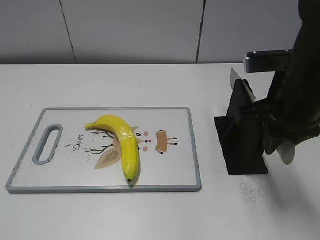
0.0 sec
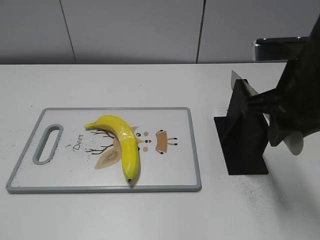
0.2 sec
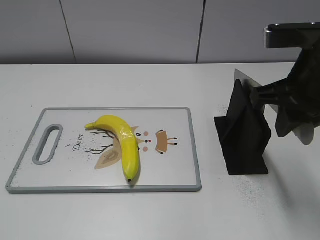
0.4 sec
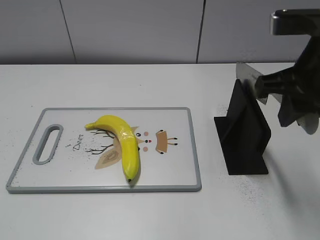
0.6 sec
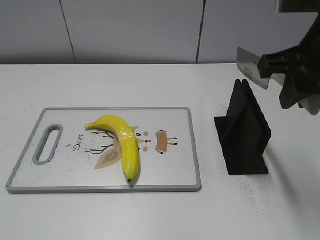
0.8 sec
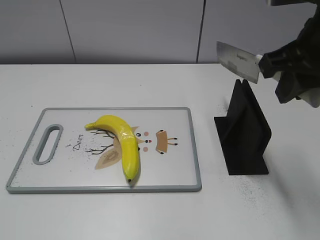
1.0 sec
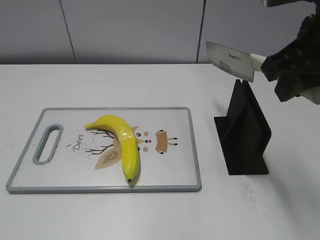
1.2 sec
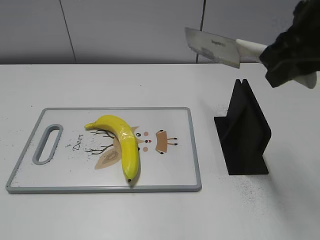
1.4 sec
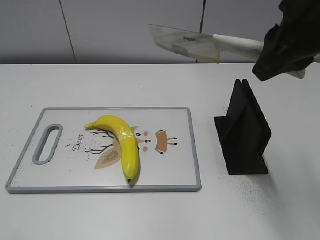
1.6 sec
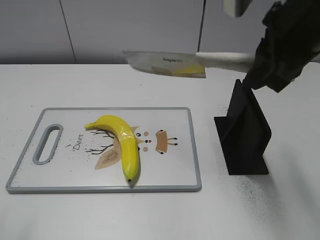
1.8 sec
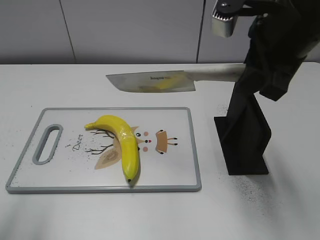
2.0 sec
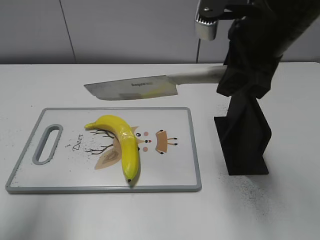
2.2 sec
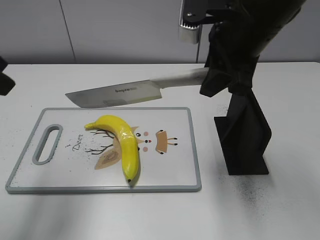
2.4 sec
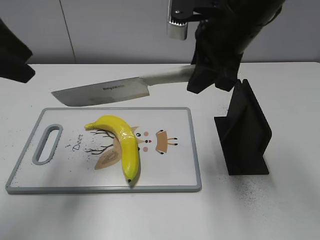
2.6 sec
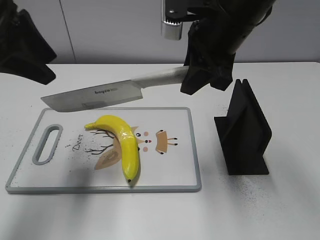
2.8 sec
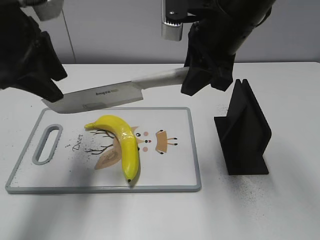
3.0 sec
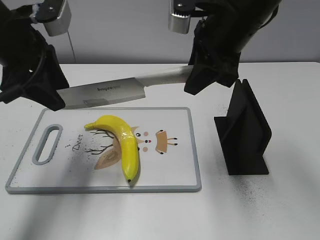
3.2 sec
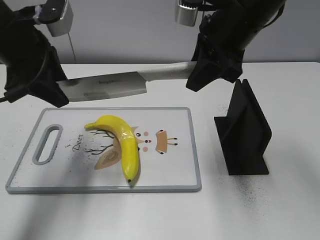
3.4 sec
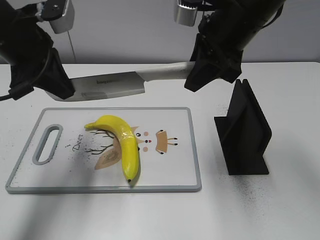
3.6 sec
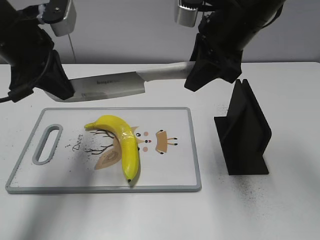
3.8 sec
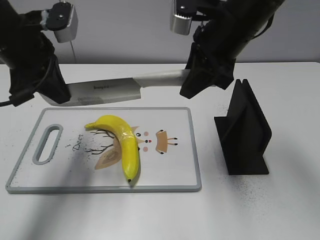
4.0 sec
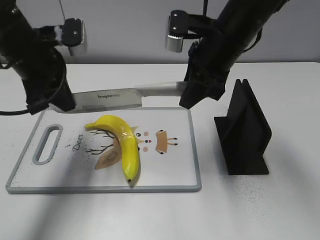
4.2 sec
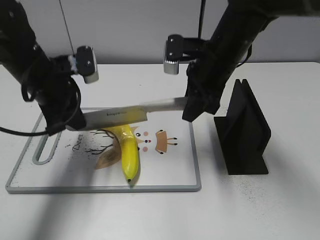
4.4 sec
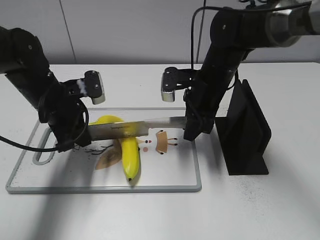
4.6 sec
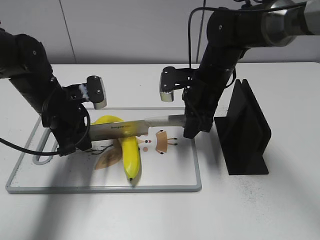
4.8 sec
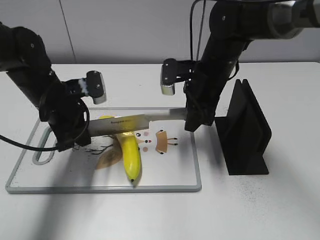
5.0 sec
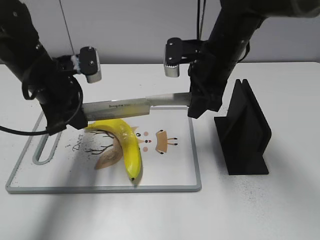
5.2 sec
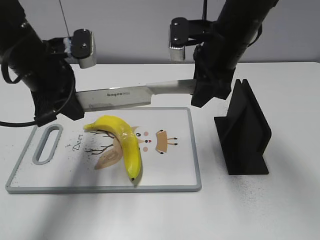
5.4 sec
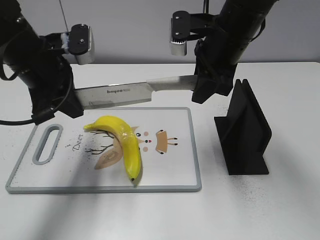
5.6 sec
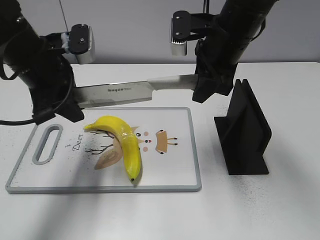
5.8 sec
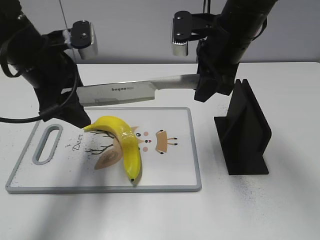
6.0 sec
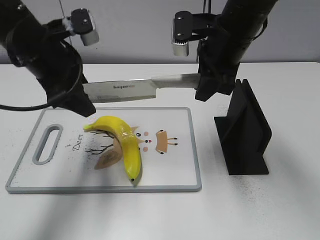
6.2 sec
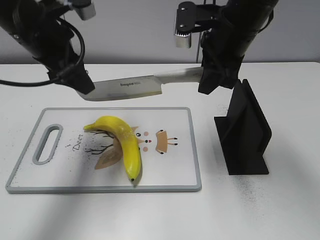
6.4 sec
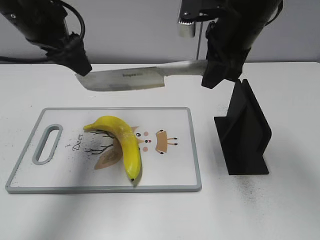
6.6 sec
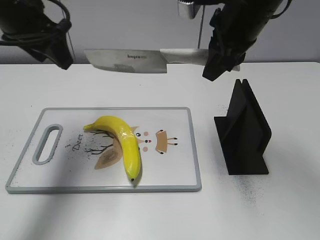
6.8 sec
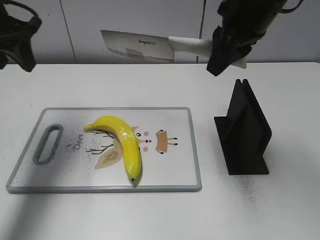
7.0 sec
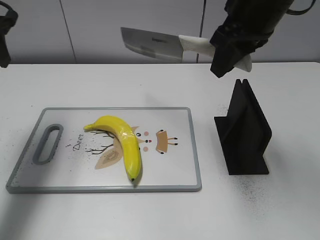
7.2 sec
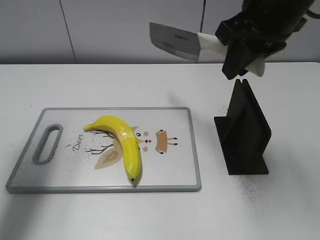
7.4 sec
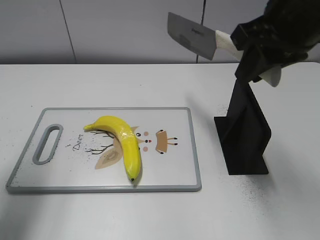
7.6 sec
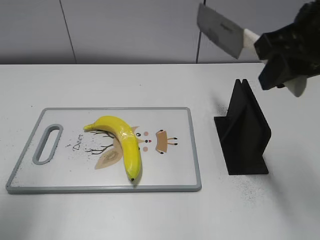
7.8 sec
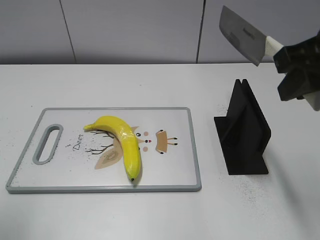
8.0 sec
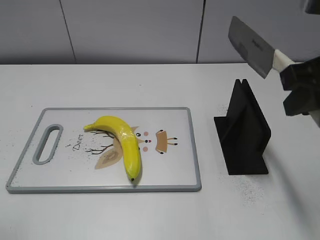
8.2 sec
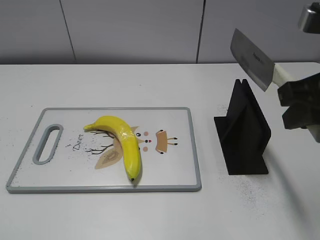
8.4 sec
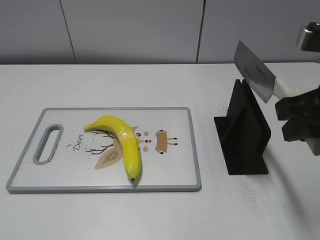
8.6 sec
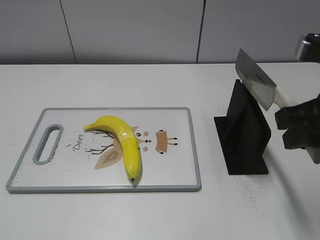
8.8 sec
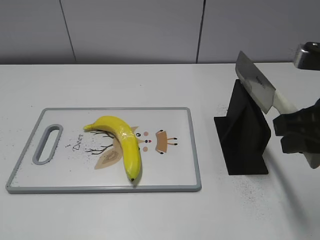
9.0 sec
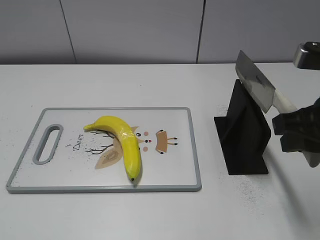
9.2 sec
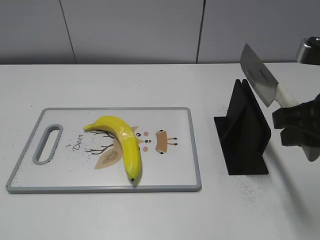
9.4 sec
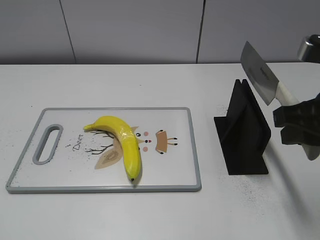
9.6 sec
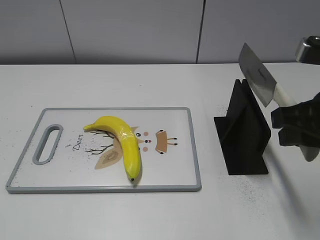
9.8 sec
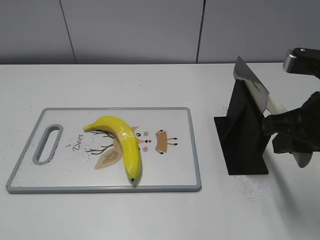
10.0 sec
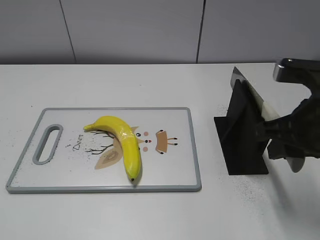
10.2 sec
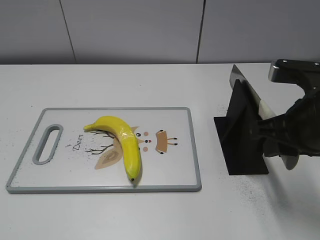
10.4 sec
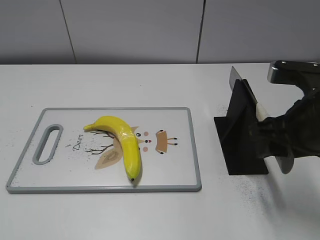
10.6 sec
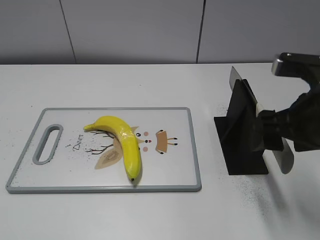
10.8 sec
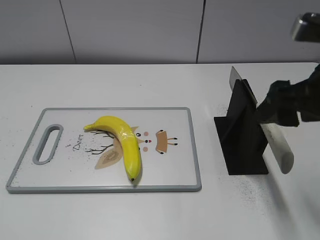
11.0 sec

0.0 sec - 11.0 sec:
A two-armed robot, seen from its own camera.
Task of the whole recording: cut plastic banana.
Step, 0.8 sec - 6.0 sec: Lift the knife with your right hand.
Step, 6.2 sec - 7.2 sec: Cut the banana with your right hand.
Step, 7.6 sec - 8.8 sec: Lift the knife with your right hand.
0.0 sec - 1.6 sec: The right gripper moves upward, about 10 cm.
1.6 sec - 3.2 sec: The left gripper travels forward by approximately 25 cm. The right gripper heads forward, to the left and downward, covering roughly 10 cm.
3.2 sec - 4.8 sec: Both grippers travel together downward, some 15 cm. The left gripper closes.
4.8 sec - 6.2 sec: The two grippers go about 10 cm upward. The left gripper opens.
6.2 sec - 7.8 sec: The left gripper shifts roughly 20 cm backward, to the left and upward, while the right gripper is displaced backward, upward and to the right by roughly 15 cm.
7.8 sec - 9.4 sec: The right gripper moves downward, approximately 5 cm. The left gripper is displaced backward by roughly 20 cm.
9.4 sec - 11.0 sec: The right gripper opens.

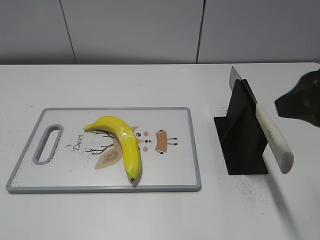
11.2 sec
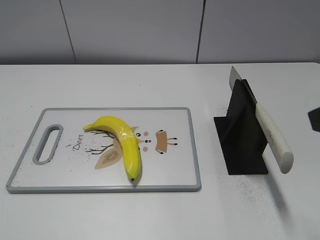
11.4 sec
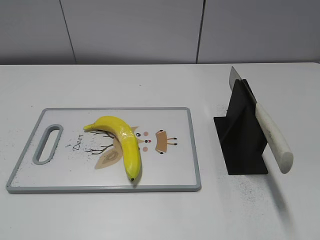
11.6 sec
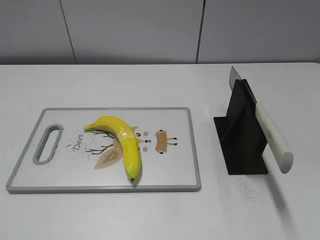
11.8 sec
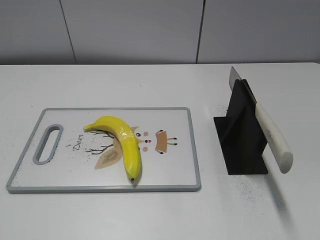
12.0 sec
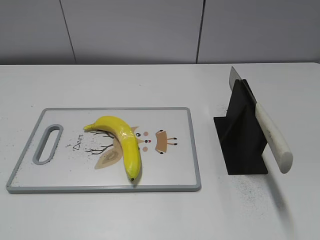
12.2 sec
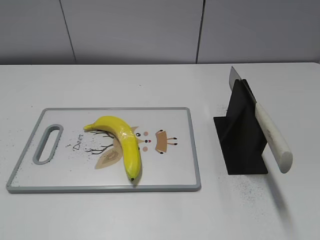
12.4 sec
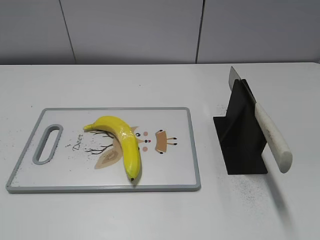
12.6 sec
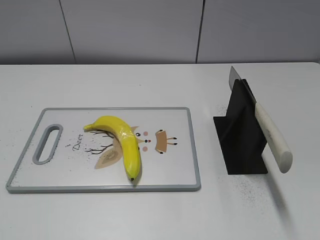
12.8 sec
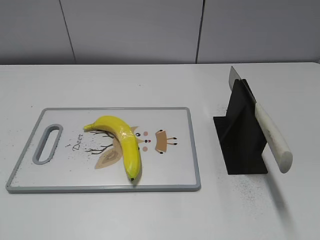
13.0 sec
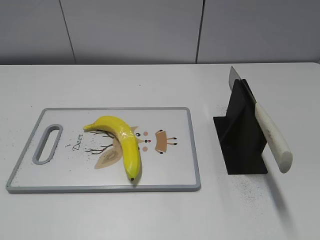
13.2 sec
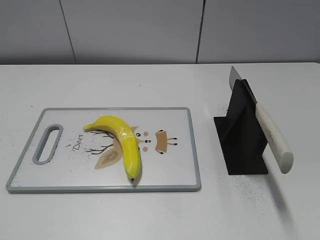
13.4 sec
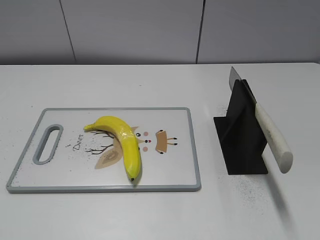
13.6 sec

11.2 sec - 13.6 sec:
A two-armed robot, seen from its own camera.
Task of the whole recording: cut plastic banana.
Step, 11.2 sec - 13.6 sec: Place the knife on the storage rack with your right hand.
11.2 sec - 12.4 sec: The right gripper heads backward and to the right, covering approximately 20 cm.

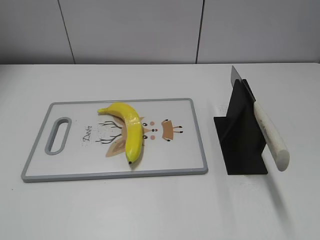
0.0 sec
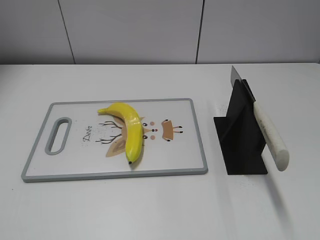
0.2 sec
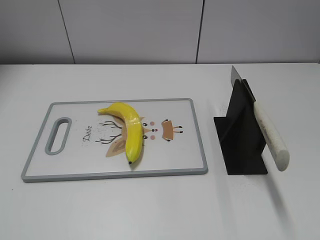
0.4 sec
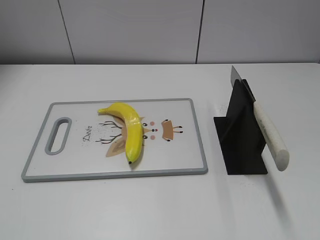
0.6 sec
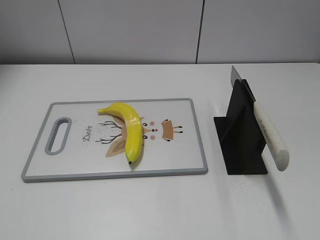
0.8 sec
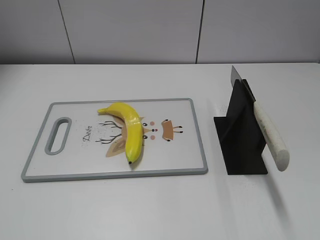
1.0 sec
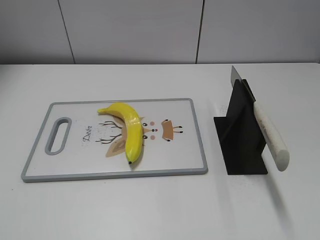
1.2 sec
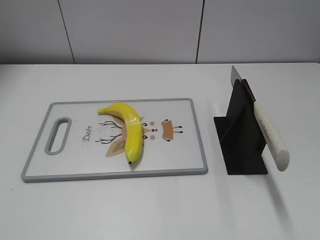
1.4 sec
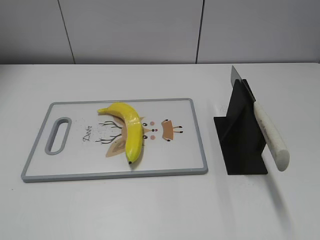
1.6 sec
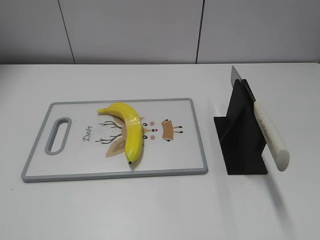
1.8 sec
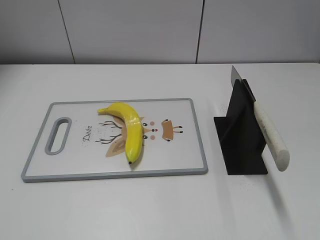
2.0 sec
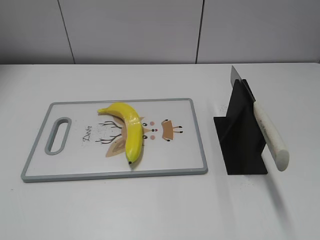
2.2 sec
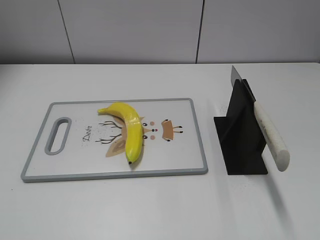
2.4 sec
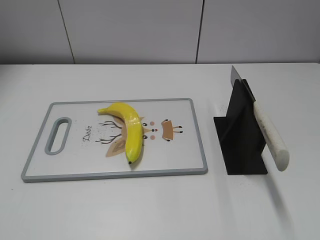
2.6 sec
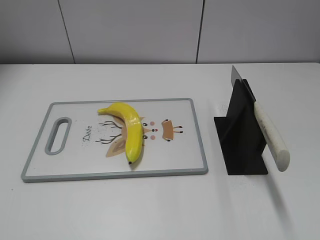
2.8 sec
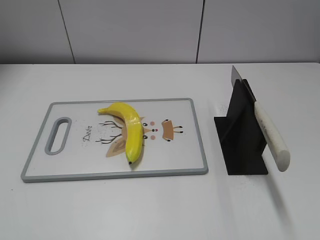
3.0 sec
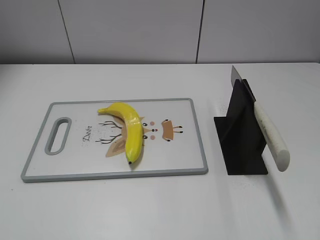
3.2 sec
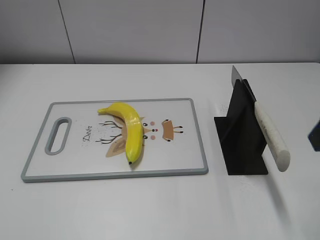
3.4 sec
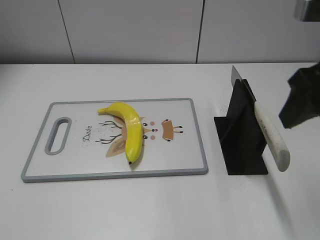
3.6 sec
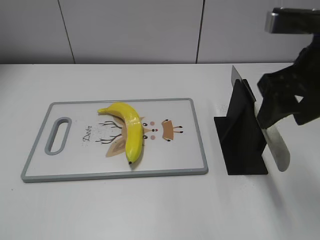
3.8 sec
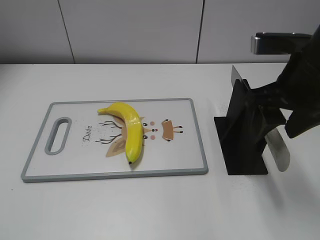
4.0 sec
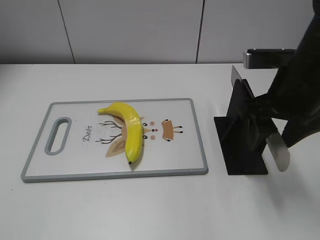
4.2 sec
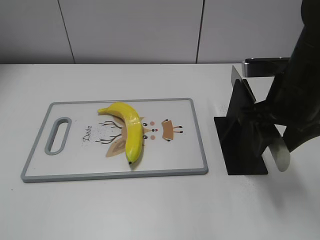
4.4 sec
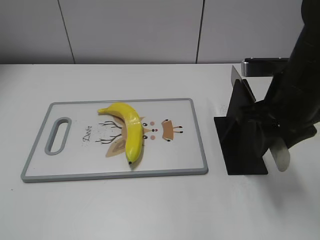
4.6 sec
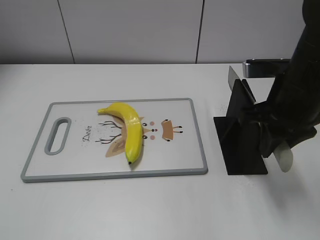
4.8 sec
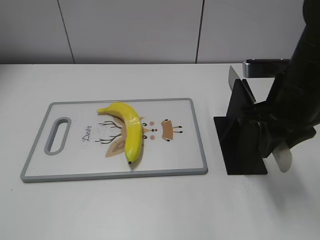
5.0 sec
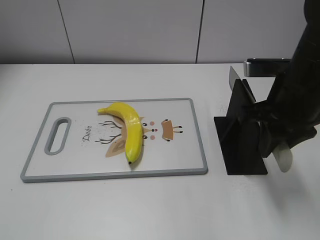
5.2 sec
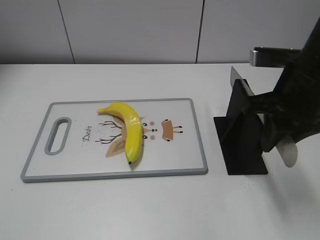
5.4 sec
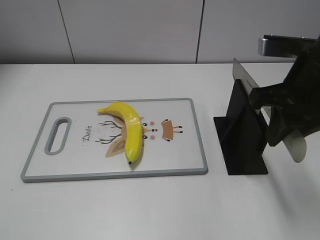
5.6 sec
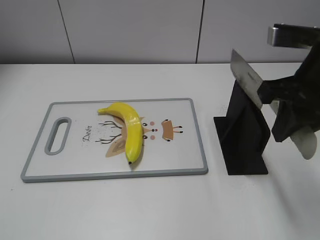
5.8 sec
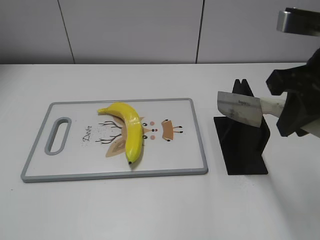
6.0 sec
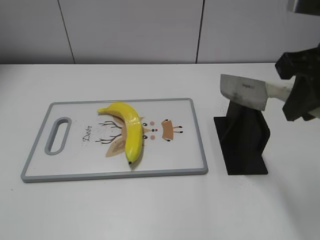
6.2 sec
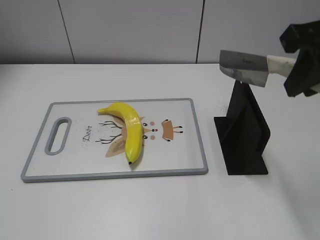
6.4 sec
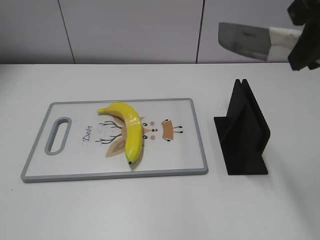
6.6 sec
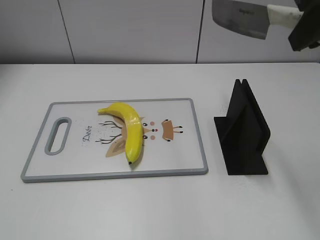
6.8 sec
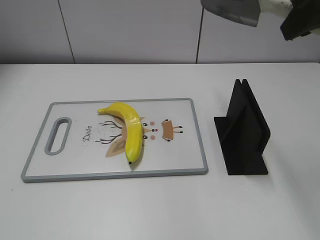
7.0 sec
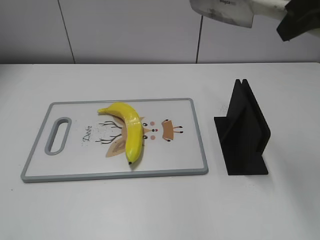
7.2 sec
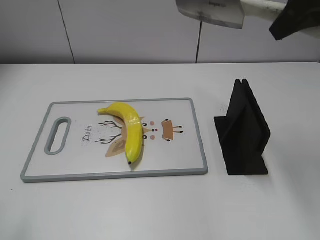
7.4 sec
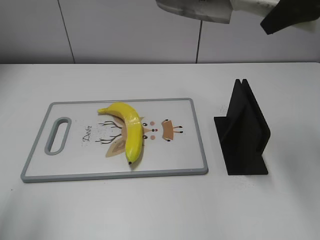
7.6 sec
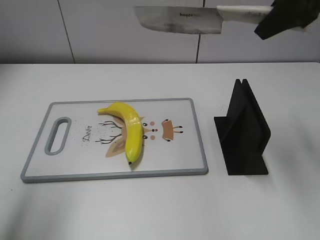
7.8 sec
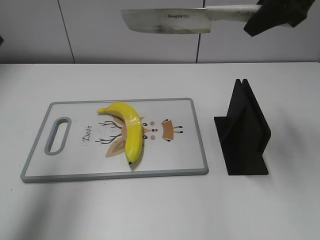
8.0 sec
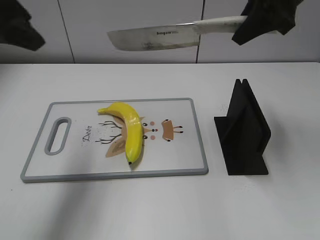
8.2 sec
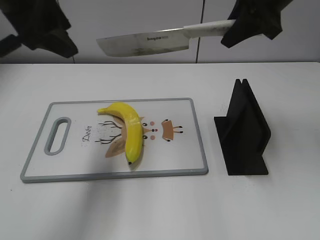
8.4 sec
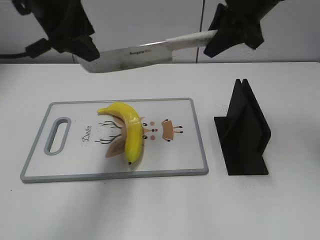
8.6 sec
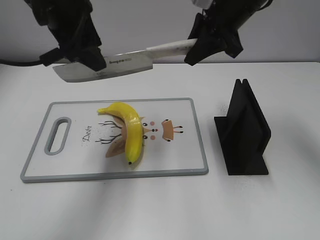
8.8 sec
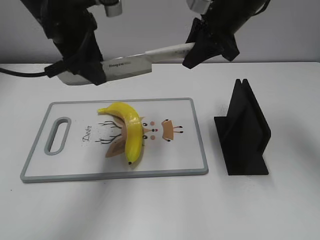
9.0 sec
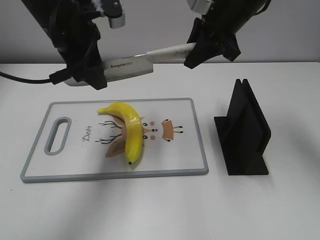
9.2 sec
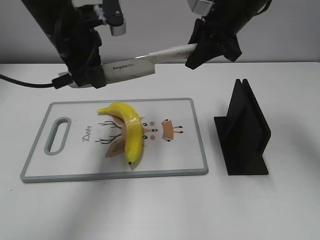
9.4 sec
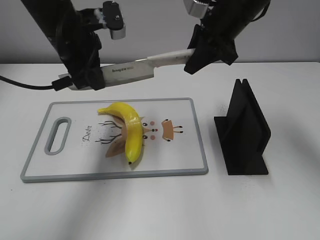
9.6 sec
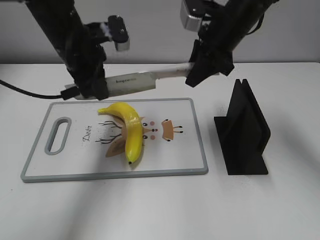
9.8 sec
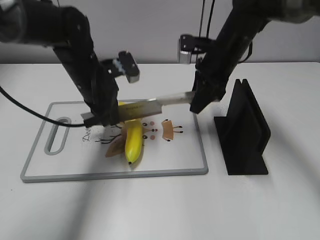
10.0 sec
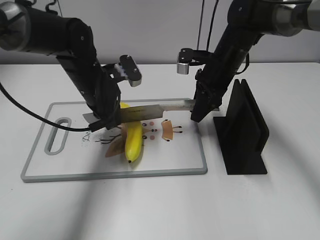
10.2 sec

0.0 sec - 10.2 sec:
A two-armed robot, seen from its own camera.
Task of the whole recording: cut plastic banana.
Step, 0.0 sec - 5.8 sec: Grab the knife handle with your right hand.
3.0 sec - 4.4 sec: The right gripper moves forward, downward and to the left, about 20 cm.
4.4 sec - 5.8 sec: The right gripper is displaced upward by some 5 cm, and closes up.
5.8 sec - 7.2 sec: The right gripper shifts about 10 cm upward.
7.2 sec - 8.8 sec: The left gripper heads forward and to the right, covering some 35 cm. The right gripper moves forward, downward and to the left, approximately 20 cm.
8.8 sec - 10.2 sec: Both grippers travel together downward, some 15 cm. The left gripper closes up.
